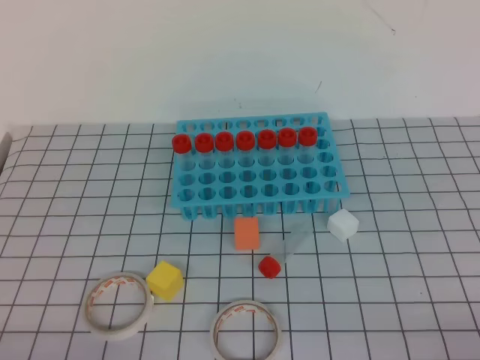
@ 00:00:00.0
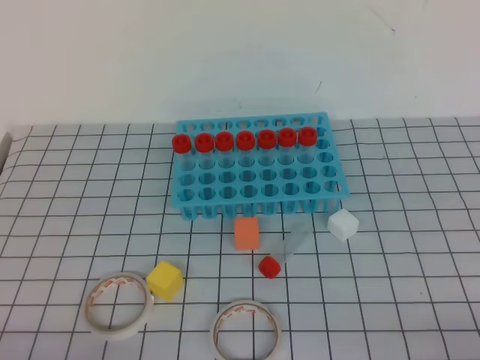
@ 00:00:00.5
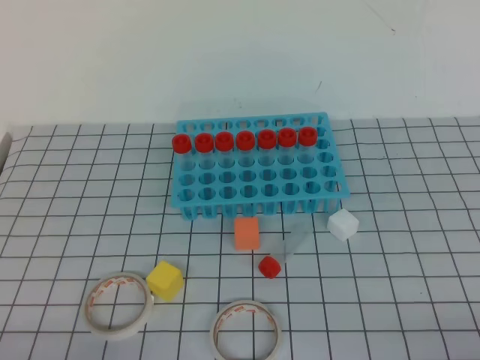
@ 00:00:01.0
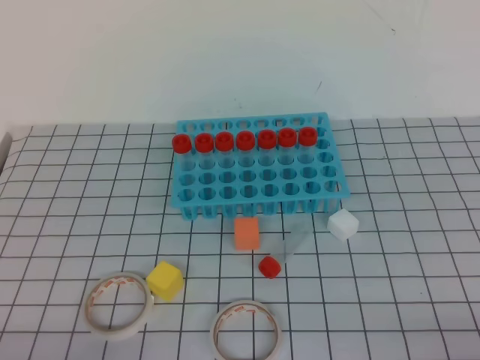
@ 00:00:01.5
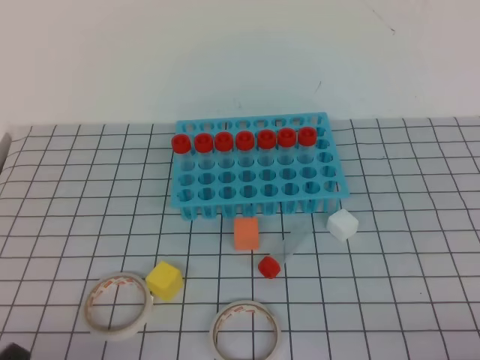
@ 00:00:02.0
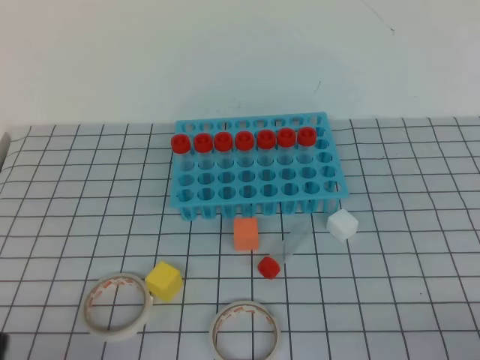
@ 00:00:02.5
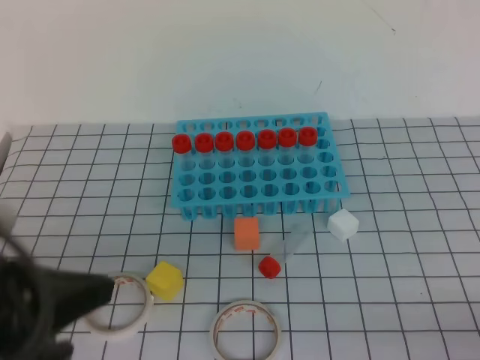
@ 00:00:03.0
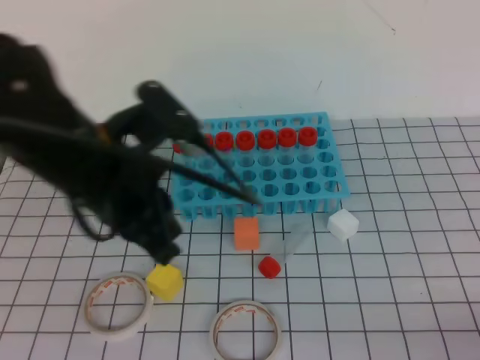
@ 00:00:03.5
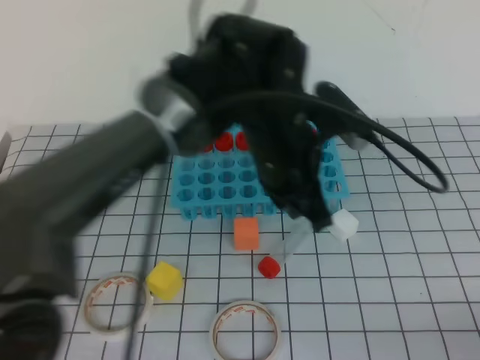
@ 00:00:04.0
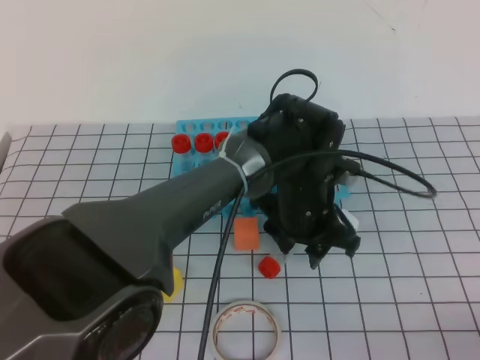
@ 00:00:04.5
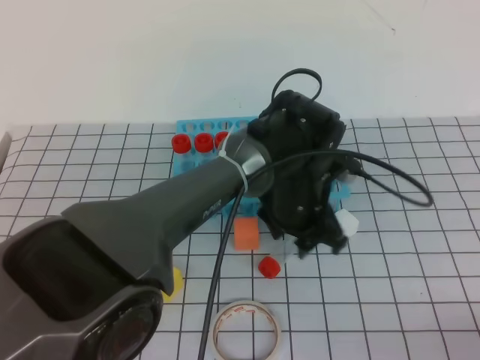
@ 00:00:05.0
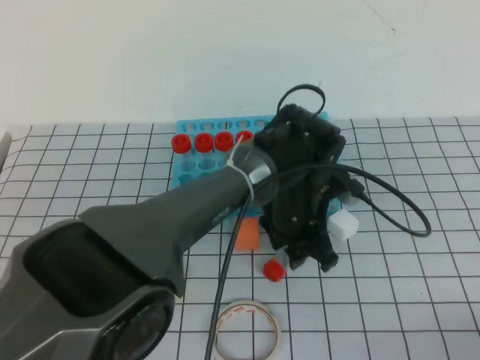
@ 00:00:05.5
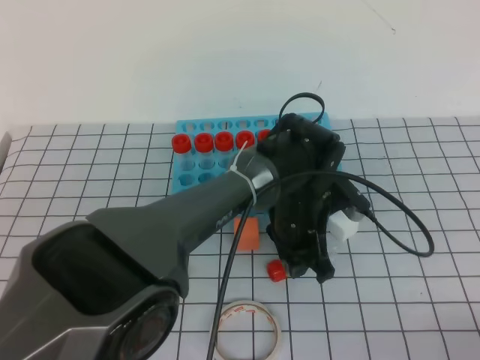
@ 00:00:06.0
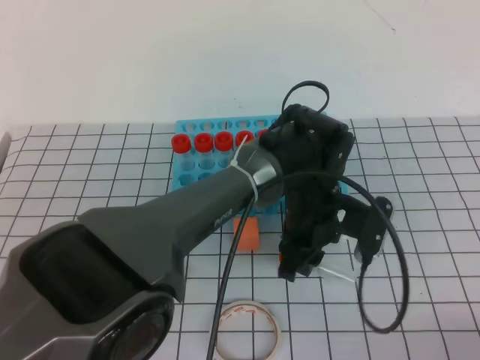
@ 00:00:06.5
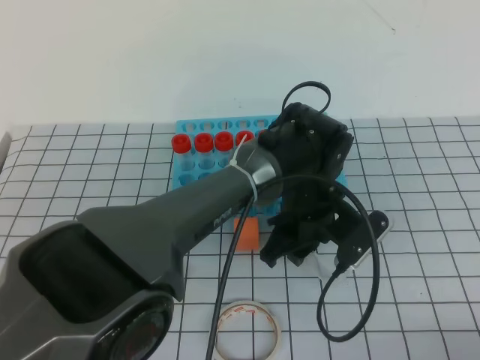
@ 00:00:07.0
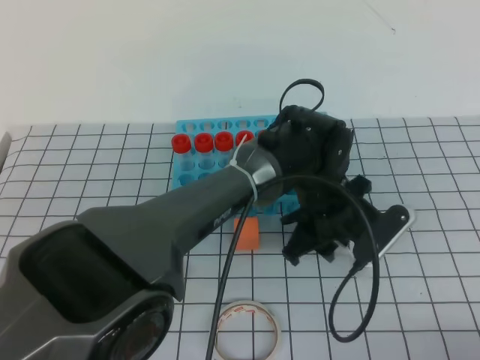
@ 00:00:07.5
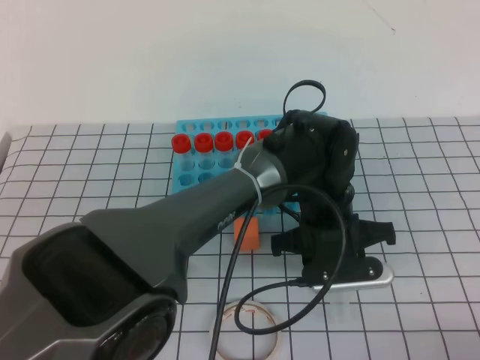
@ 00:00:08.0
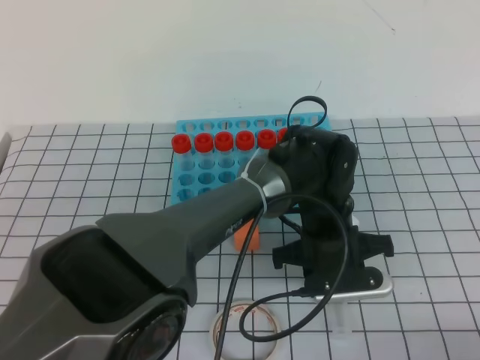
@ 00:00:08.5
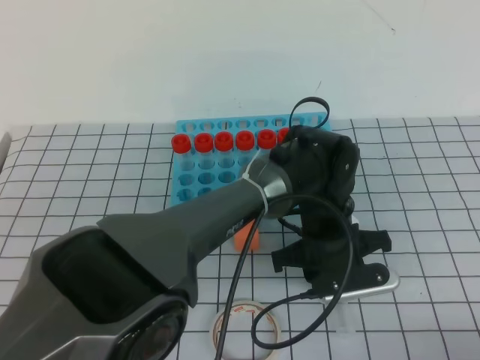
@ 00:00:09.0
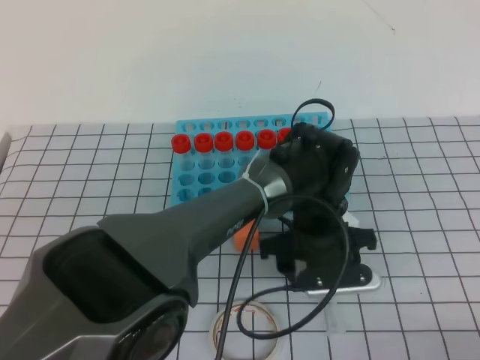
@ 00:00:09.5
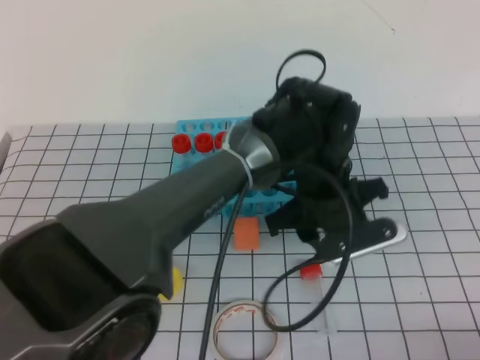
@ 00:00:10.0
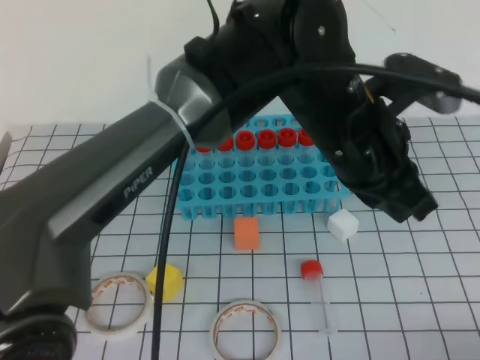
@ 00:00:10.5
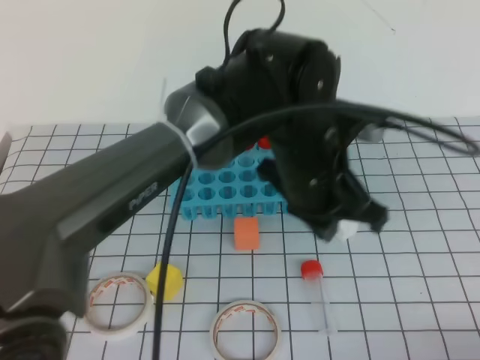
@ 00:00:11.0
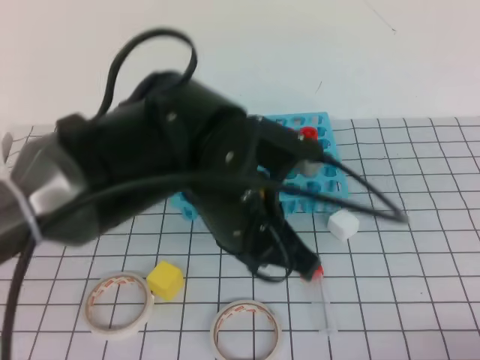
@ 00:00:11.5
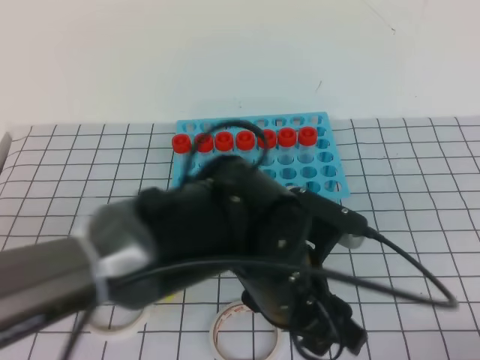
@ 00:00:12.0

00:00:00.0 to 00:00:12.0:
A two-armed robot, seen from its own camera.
00:00:02.0 to 00:00:04.0: The left gripper shifts about 40 cm forward, to the right and upward.
00:00:04.0 to 00:00:06.0: The left gripper is displaced downward and to the right by some 15 cm, and opens.
00:00:08.0 to 00:00:10.0: The grippers move only a little.
00:00:10.0 to 00:00:12.0: The left gripper shifts roughly 15 cm backward and to the left, and closes and opens again.

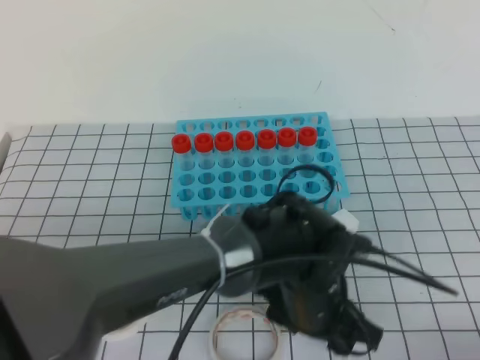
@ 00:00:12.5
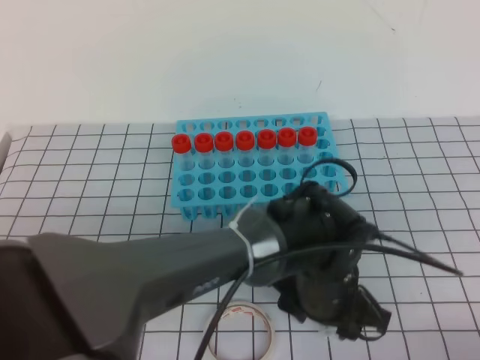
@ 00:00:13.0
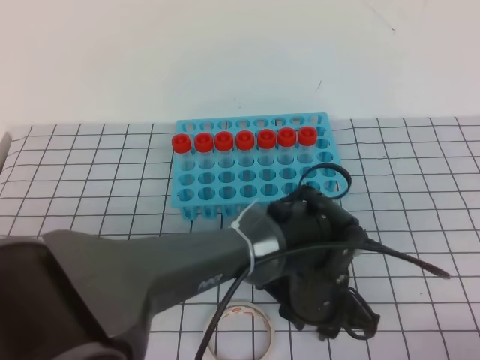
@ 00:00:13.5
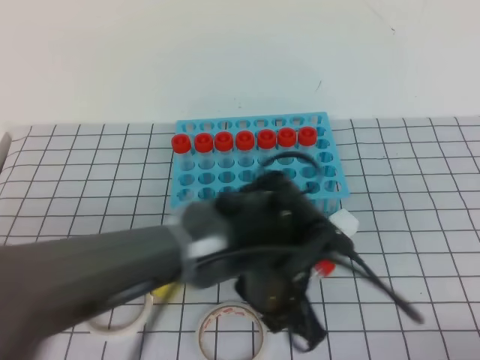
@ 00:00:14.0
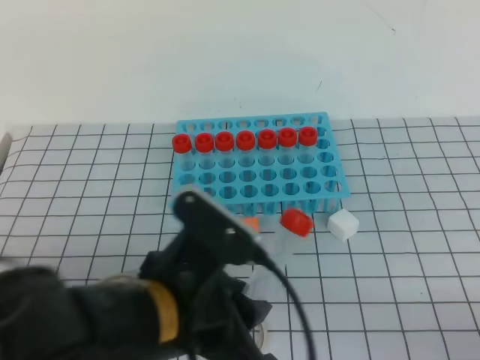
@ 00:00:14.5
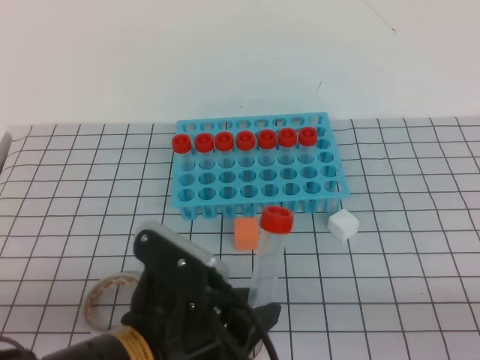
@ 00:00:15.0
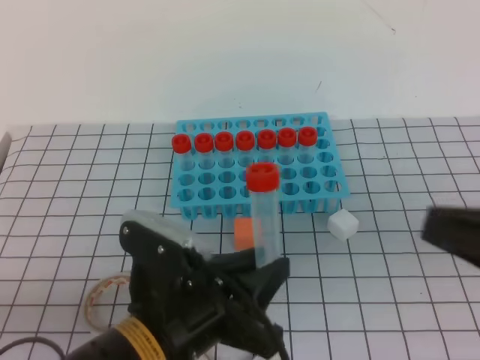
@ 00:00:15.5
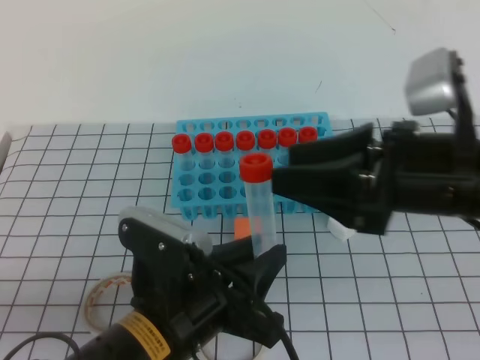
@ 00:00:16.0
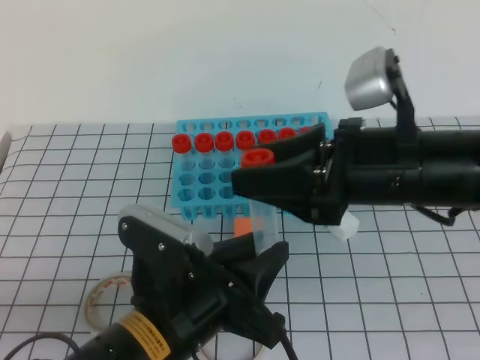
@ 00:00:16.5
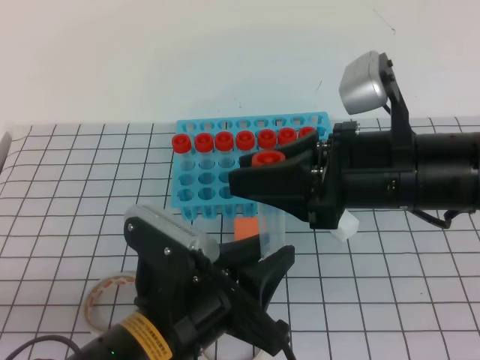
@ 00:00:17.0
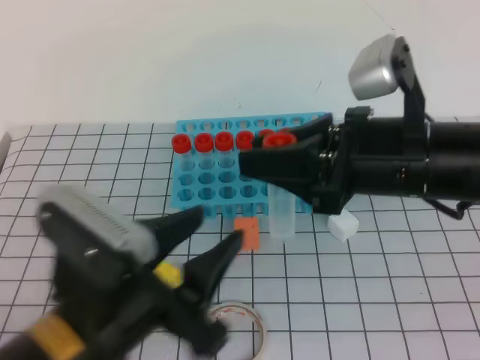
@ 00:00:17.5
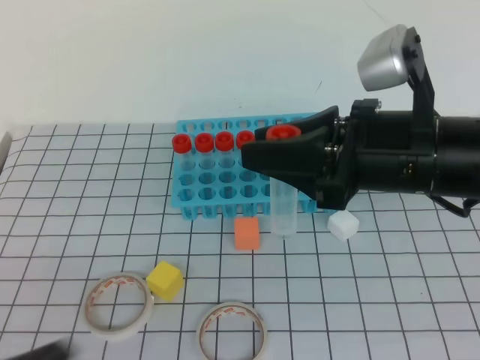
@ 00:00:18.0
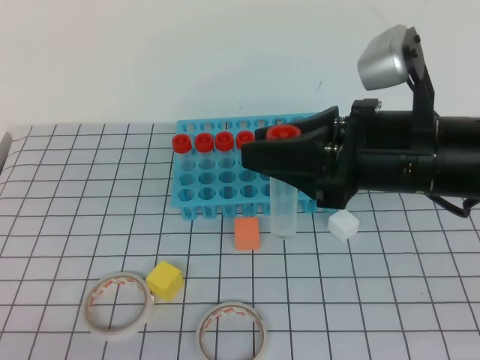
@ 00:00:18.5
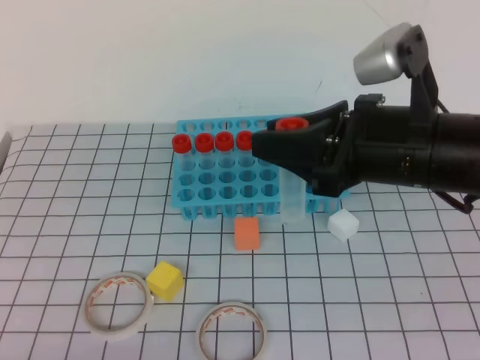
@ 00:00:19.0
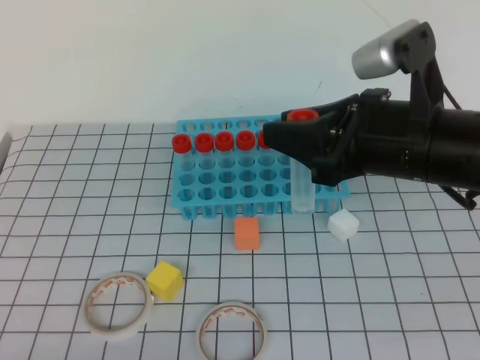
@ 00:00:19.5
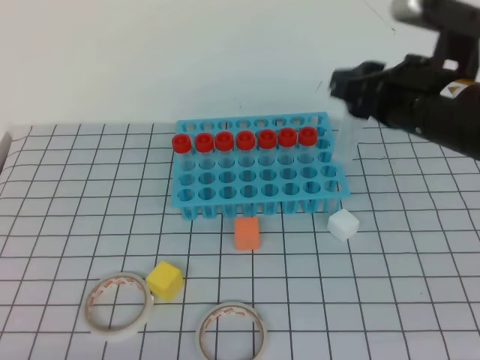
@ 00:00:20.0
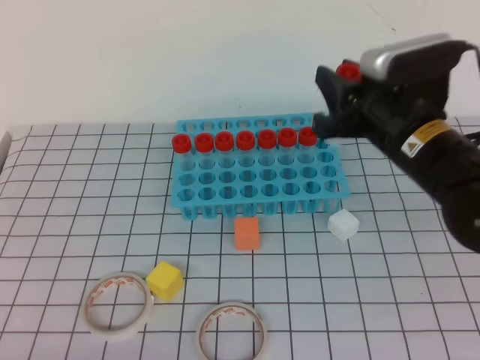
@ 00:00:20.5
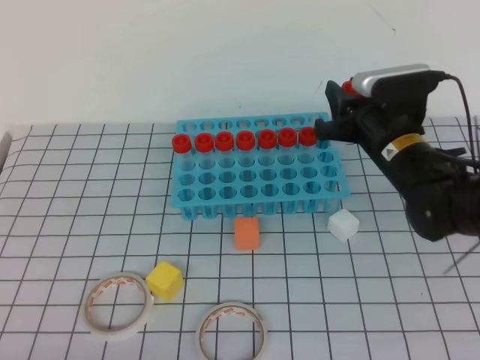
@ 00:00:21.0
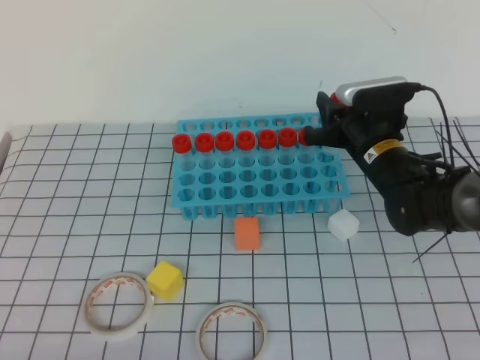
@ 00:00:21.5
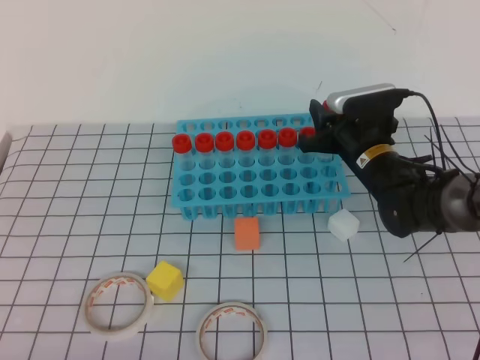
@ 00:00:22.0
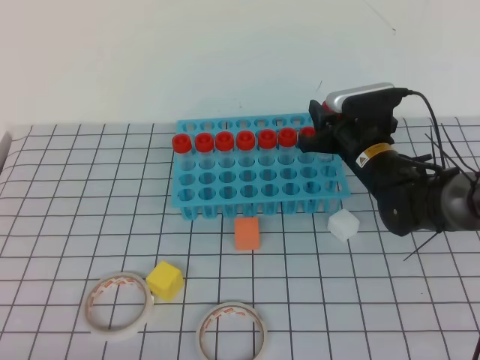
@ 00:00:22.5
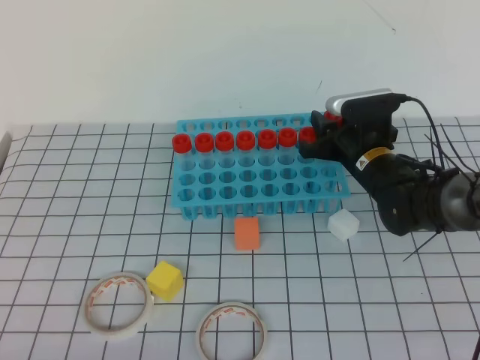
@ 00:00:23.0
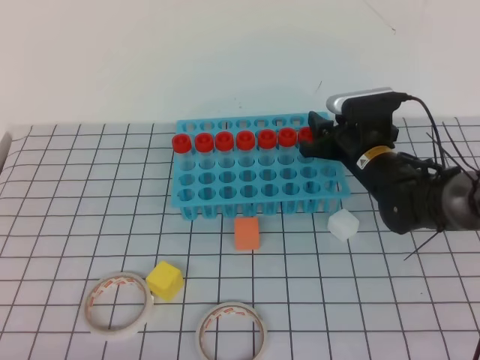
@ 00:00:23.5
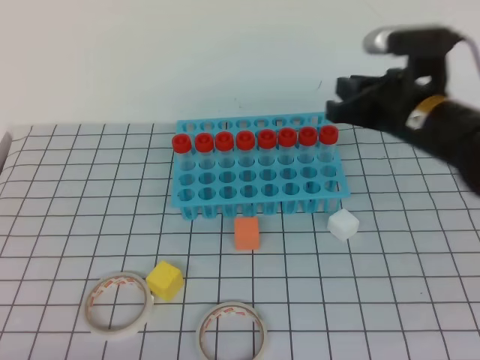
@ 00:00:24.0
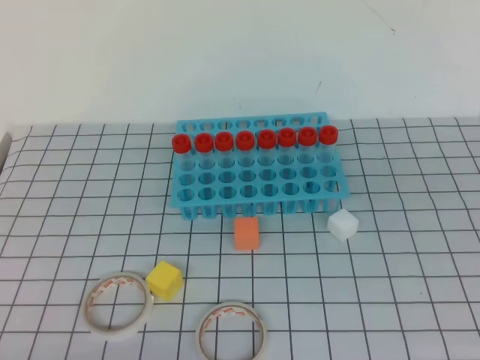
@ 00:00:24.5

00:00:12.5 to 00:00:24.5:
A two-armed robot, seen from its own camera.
00:00:12.5 to 00:00:14.5: The left gripper goes some 15 cm to the left, backward and upward, and closes up.
00:00:14.5 to 00:00:16.5: The right gripper moves forward, to the left and upward, approximately 30 cm, and opens its fingers.
00:00:16.5 to 00:00:18.5: The left gripper travels to the left and backward by approximately 20 cm, and closes its fingers.
00:00:18.5 to 00:00:20.5: The right gripper is displaced forward by roughly 10 cm.
00:00:20.5 to 00:00:22.5: The right gripper shifts about 15 cm downward and forward.
00:00:22.5 to 00:00:24.5: The right gripper goes roughly 35 cm backward and upward, and closes up.
